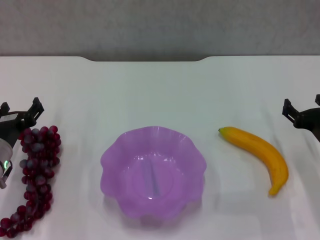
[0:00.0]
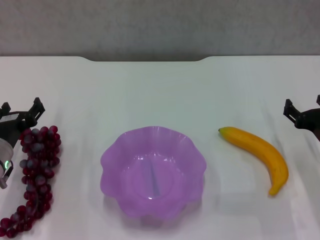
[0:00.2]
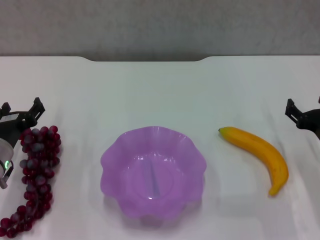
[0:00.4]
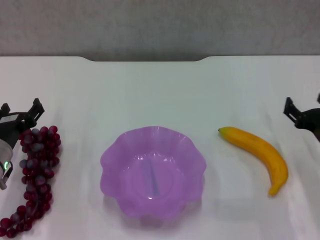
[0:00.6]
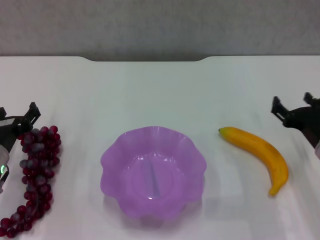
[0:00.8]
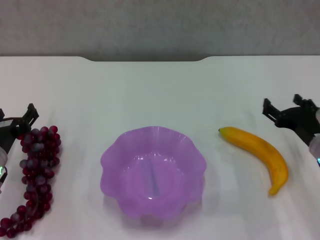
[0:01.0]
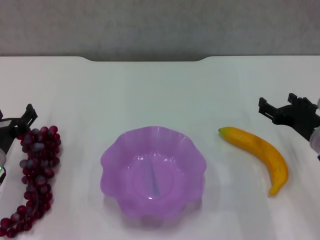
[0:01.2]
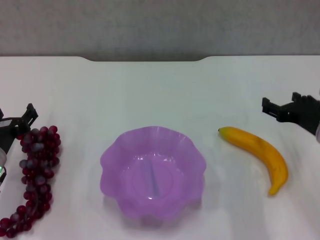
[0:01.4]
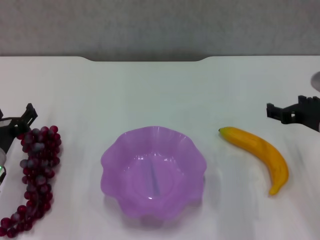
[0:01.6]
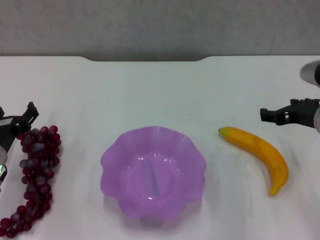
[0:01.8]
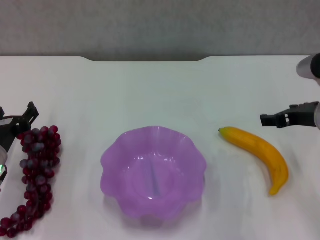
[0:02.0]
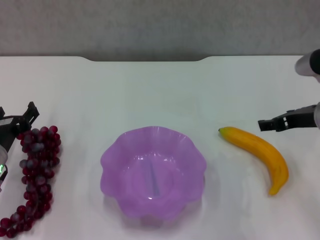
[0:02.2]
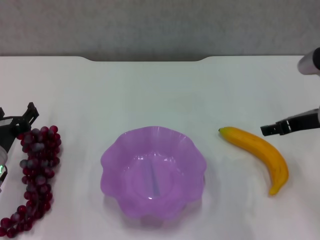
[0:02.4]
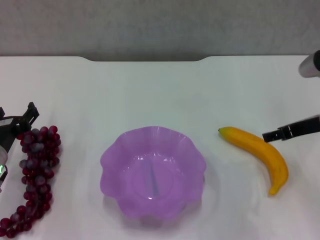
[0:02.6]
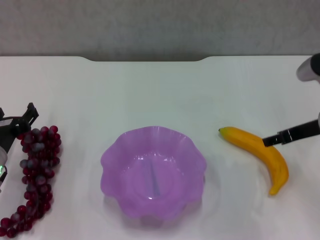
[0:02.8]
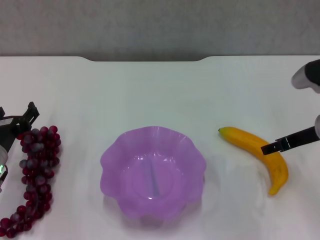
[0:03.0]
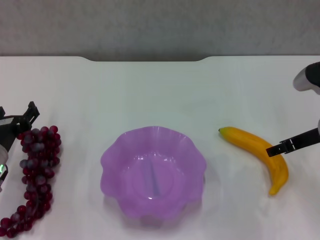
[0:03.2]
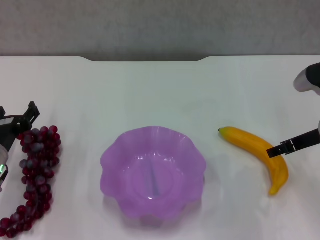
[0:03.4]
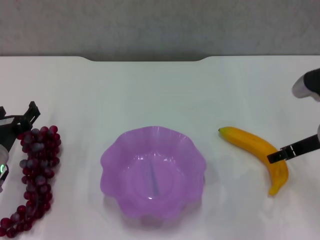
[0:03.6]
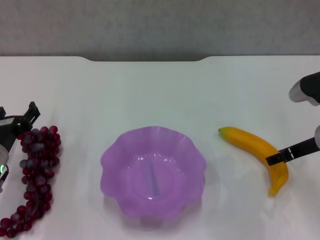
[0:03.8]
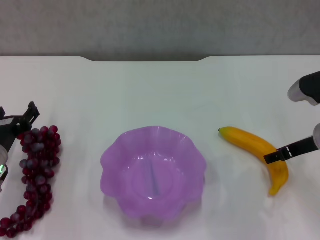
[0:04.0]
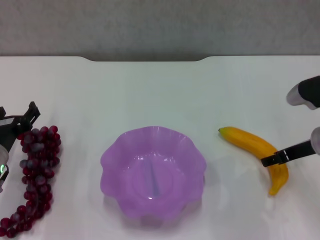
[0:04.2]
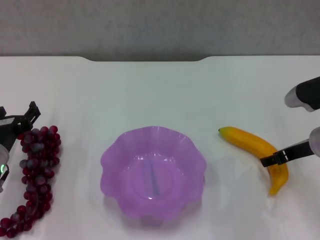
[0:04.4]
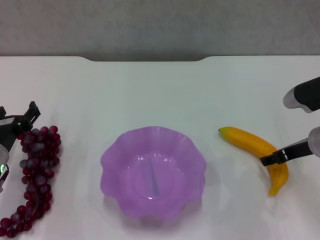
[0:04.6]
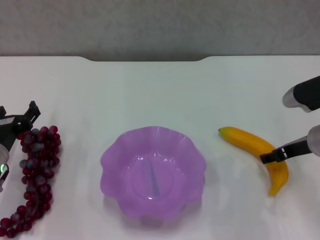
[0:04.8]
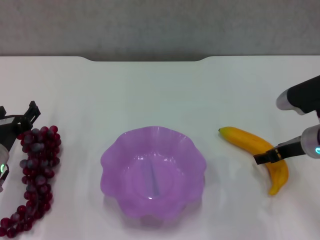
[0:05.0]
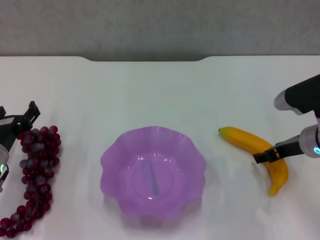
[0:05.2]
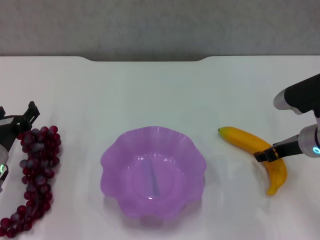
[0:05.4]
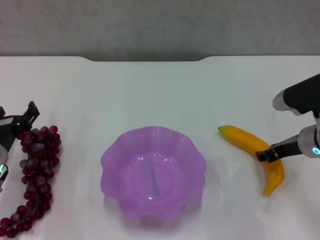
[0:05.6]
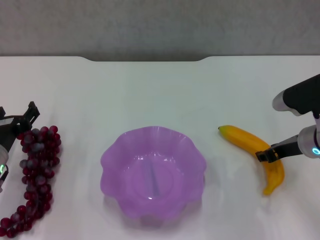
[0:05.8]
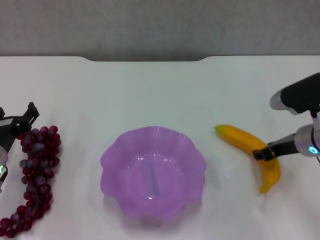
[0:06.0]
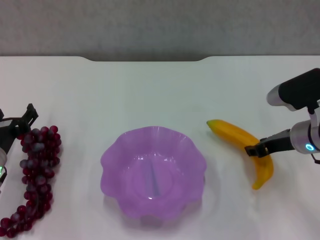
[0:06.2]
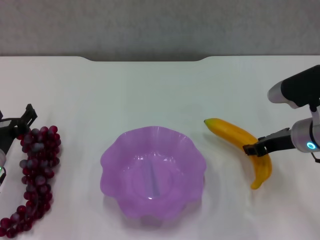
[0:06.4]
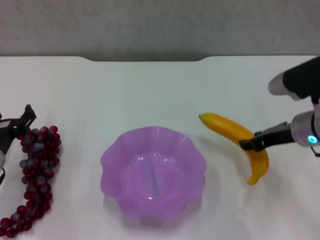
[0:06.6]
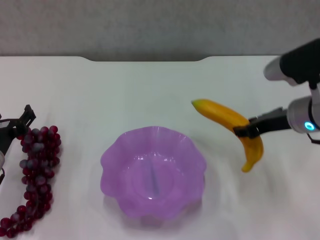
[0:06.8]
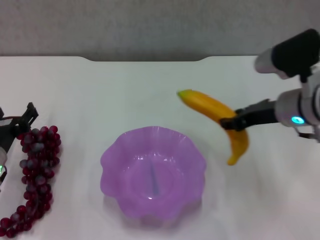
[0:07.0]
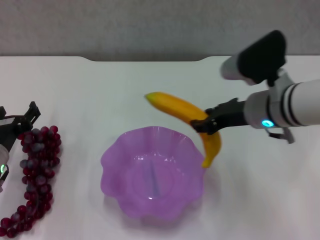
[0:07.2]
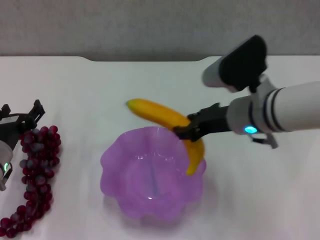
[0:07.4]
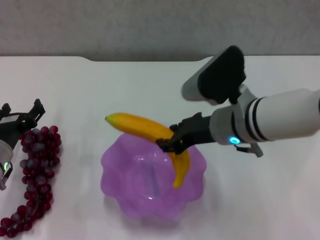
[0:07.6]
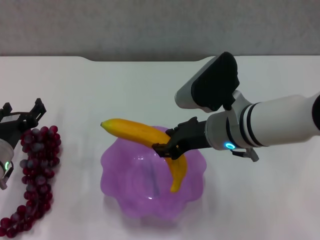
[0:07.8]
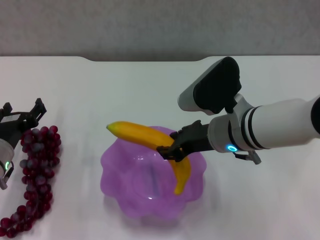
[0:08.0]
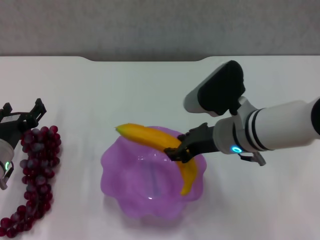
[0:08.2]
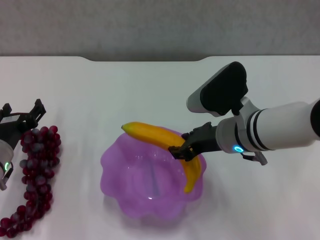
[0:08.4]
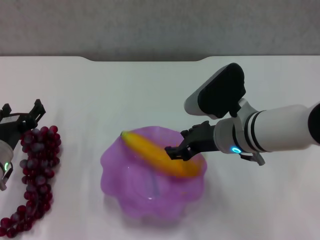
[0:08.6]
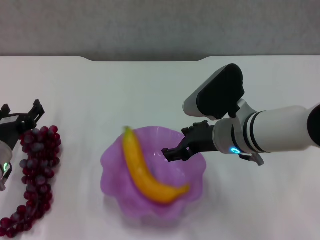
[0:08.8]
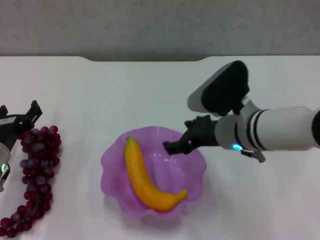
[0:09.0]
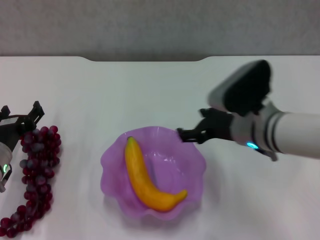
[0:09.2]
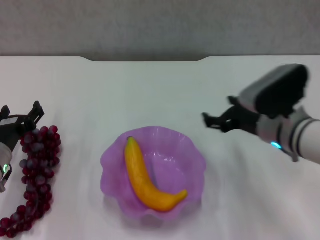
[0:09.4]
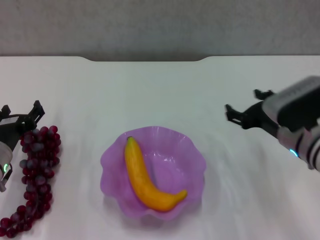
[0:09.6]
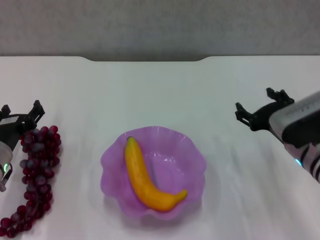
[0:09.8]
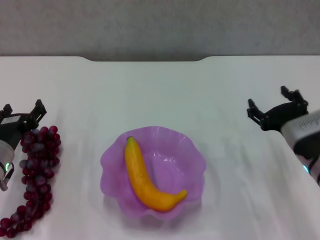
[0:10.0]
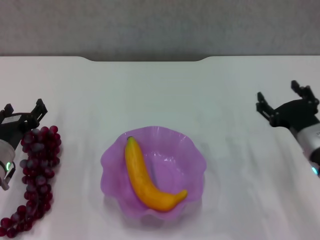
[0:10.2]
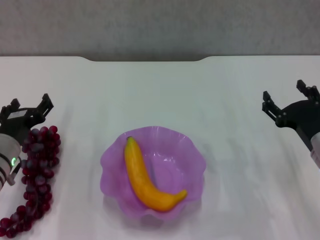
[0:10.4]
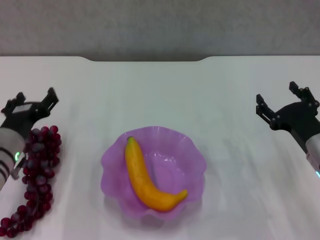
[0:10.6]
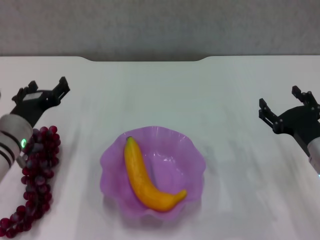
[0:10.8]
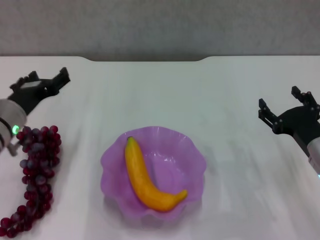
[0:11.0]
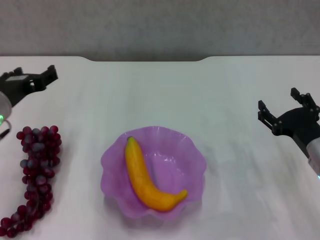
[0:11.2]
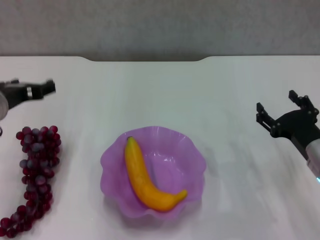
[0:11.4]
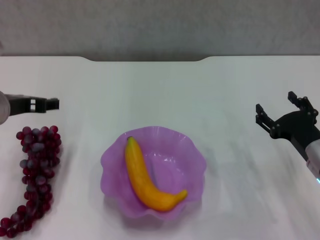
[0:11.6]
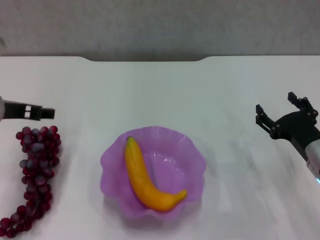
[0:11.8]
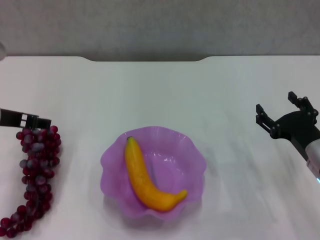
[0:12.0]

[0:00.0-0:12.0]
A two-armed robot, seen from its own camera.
Step, 0:00.0 to 0:05.6: Grasp the banana with right gripper.
Step, 0:05.8 to 0:08.8: Place the banana in the purple plate with right gripper.
0:00.0 to 0:01.6: The right gripper heads upward, covering roughly 10 cm.
0:03.0 to 0:04.4: The grippers stay close to where they were, moving slightly.
0:04.4 to 0:06.0: The right gripper closes its fingers.
0:06.0 to 0:07.6: The right gripper goes approximately 15 cm to the left and upward.
0:07.6 to 0:09.0: The right gripper opens its fingers.
0:09.0 to 0:10.4: The right gripper is displaced to the right and downward by roughly 15 cm, and opens.
0:10.4 to 0:12.0: The left gripper shifts about 15 cm upward.

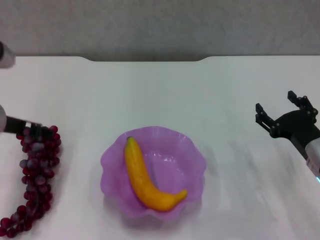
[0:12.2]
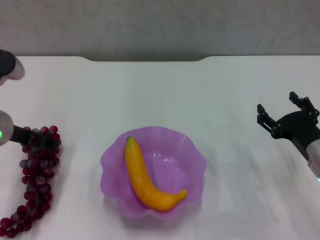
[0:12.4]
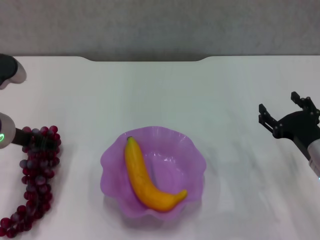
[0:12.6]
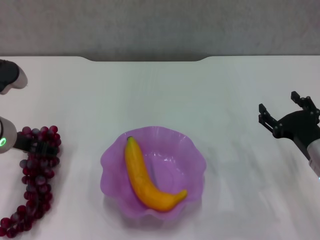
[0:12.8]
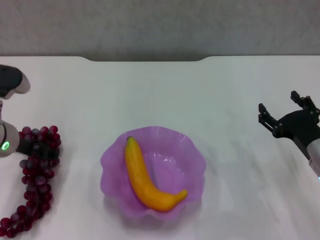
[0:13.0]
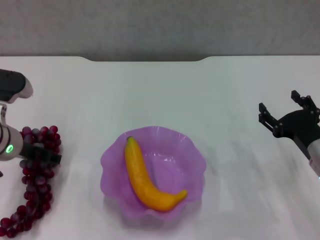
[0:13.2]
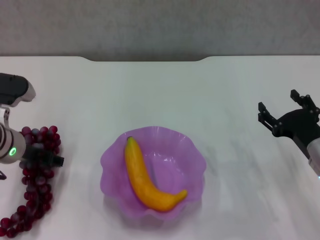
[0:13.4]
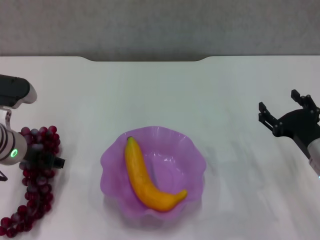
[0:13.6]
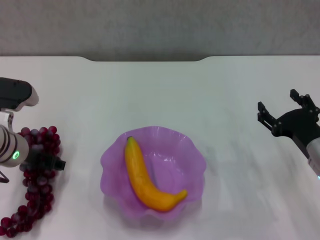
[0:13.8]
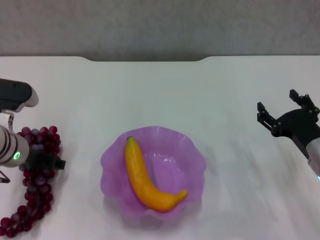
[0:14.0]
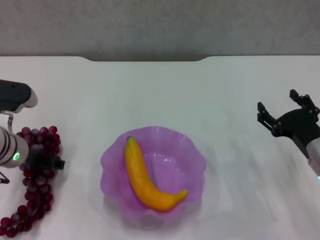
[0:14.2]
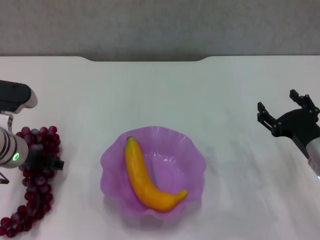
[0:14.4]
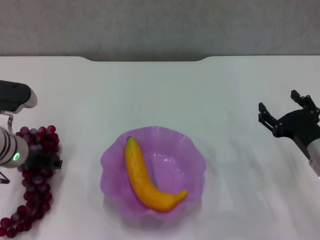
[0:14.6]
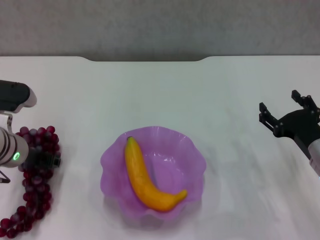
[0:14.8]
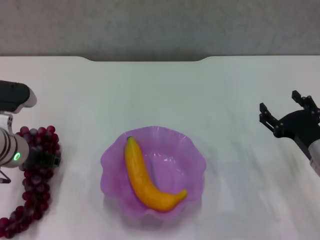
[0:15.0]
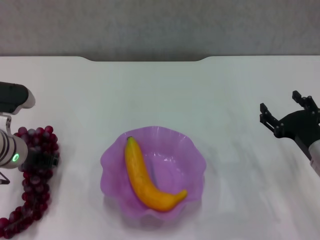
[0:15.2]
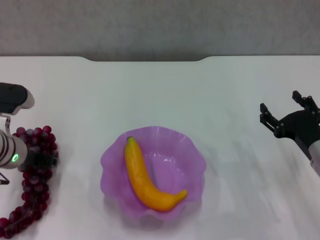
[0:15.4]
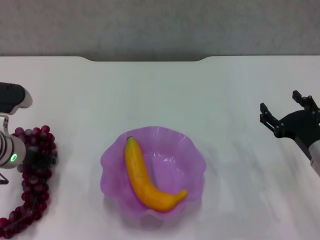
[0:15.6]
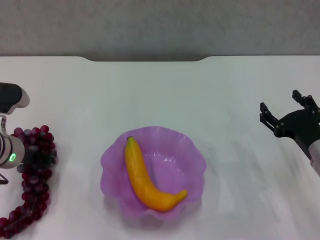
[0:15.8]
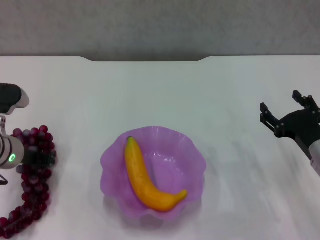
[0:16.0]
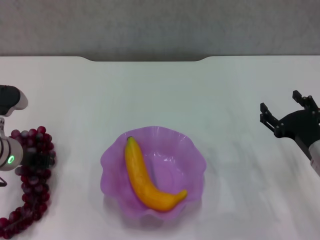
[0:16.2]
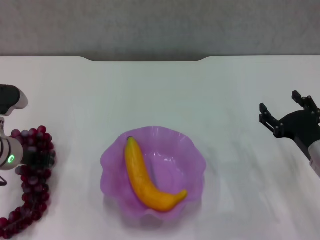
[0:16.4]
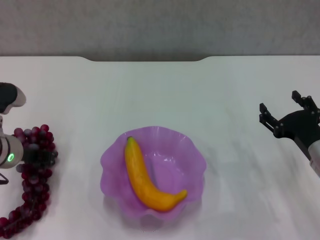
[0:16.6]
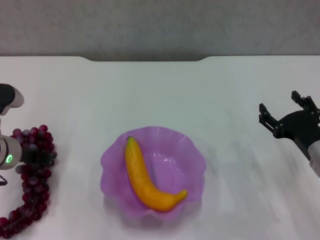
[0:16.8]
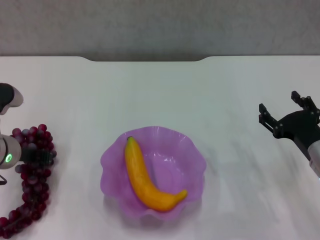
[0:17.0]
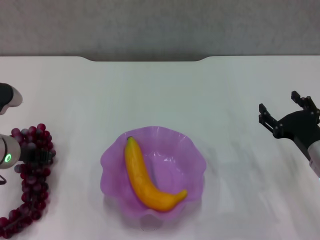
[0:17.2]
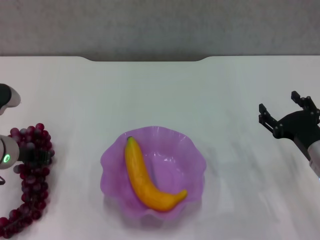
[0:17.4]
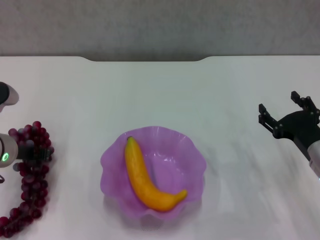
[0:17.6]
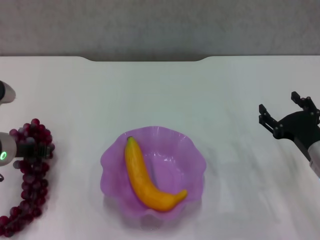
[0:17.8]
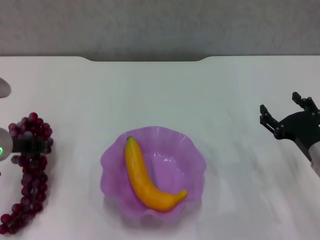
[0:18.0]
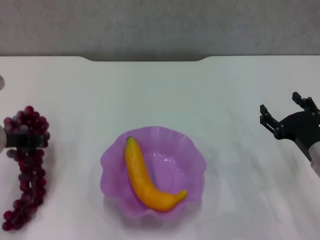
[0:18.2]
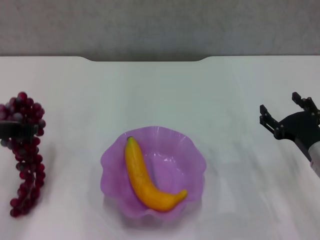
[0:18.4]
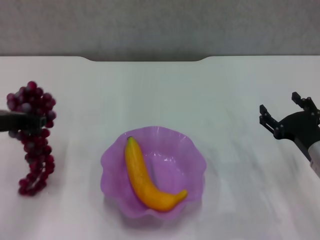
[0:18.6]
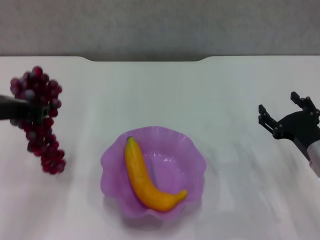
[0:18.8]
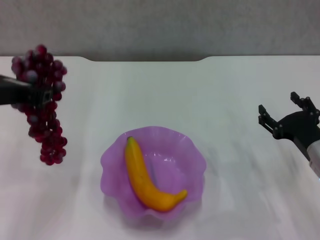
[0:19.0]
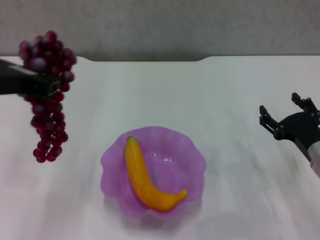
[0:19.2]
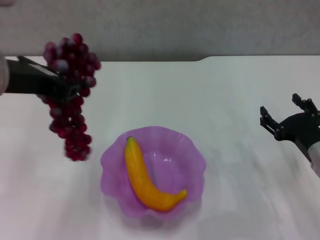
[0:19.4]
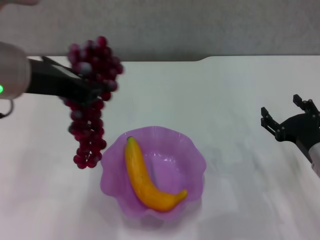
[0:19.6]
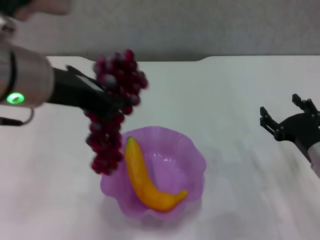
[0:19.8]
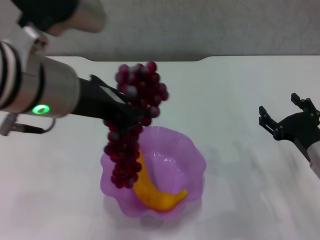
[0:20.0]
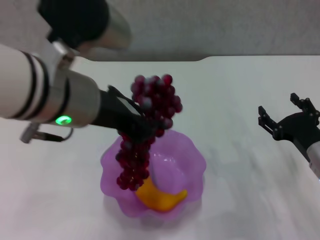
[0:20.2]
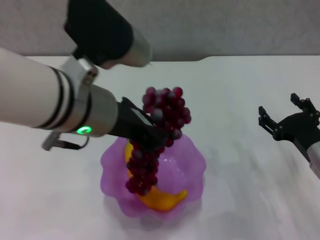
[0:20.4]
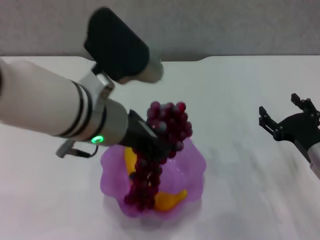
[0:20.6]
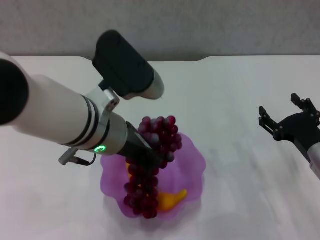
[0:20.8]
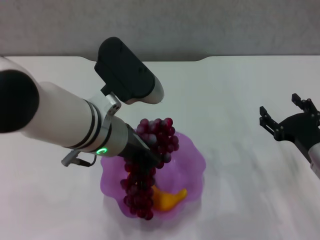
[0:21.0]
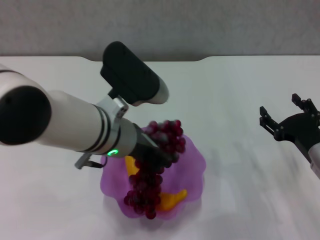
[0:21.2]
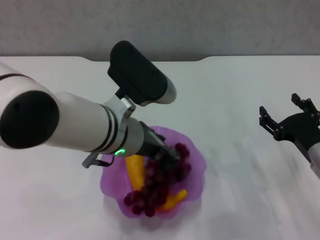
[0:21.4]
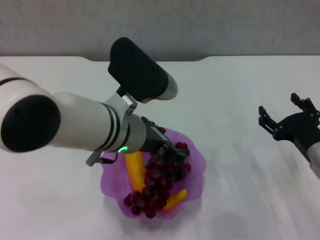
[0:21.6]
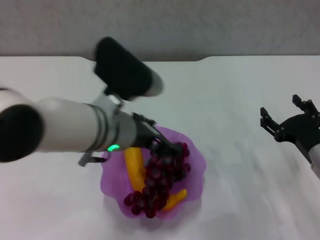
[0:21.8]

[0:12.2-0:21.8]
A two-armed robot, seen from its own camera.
Step, 0:12.2 to 0:17.2: Grasp the grape with left gripper.
Step, 0:17.4 to 0:21.6: Place the grape in the purple plate with left gripper.
0:12.2 to 0:13.8: The left gripper moves downward, approximately 10 cm.
0:13.8 to 0:15.4: The left gripper closes.
0:15.4 to 0:17.0: The grippers move only a little.
0:17.0 to 0:18.6: The left gripper goes roughly 10 cm upward.
0:18.6 to 0:20.2: The left gripper travels to the right and upward by about 15 cm.
0:20.2 to 0:21.8: The left gripper shifts approximately 10 cm downward, and opens up.

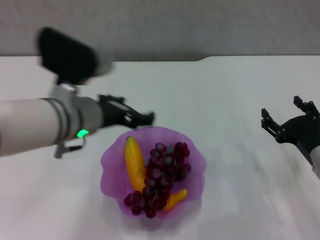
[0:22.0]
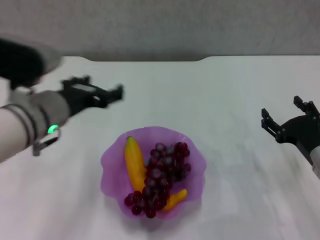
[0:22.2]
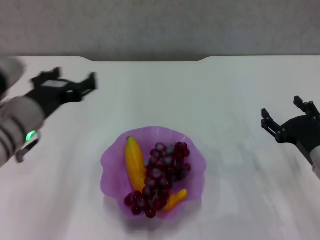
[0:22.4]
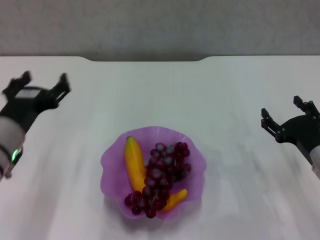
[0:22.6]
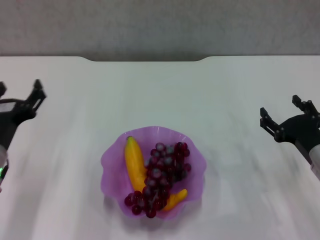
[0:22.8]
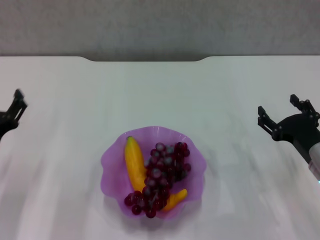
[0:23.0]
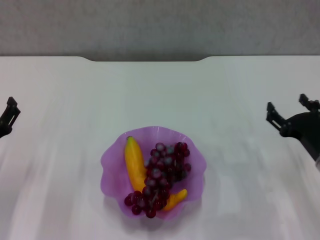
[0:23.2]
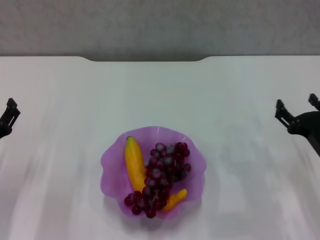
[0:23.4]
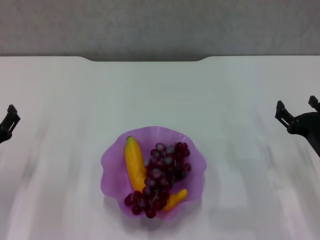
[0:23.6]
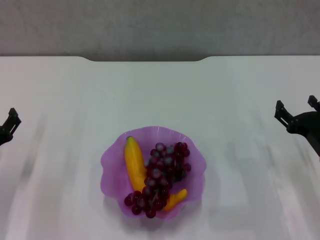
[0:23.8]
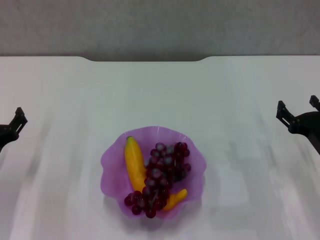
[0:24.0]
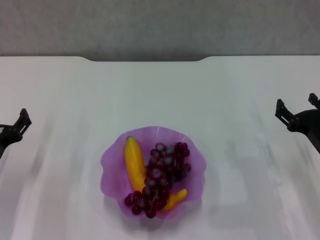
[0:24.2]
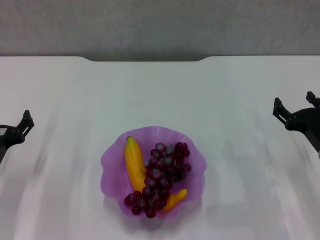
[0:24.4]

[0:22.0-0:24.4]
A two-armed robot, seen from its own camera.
0:22.0 to 0:23.2: The left gripper goes roughly 20 cm to the left and downward.
0:23.2 to 0:24.4: The grippers make only small movements.
